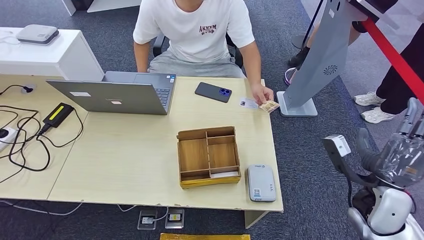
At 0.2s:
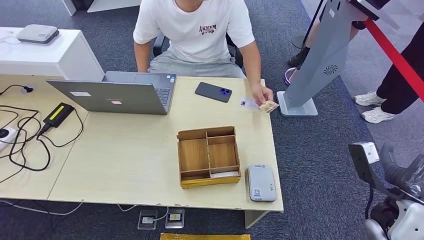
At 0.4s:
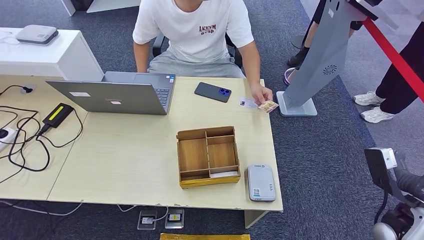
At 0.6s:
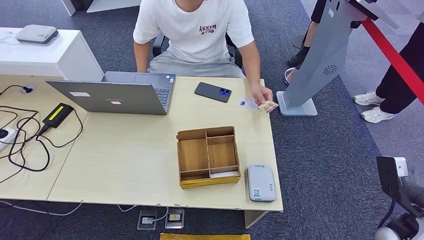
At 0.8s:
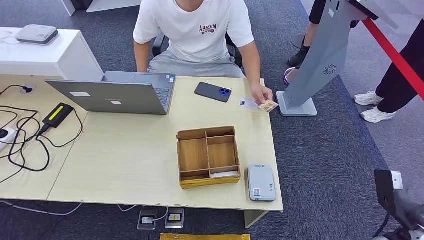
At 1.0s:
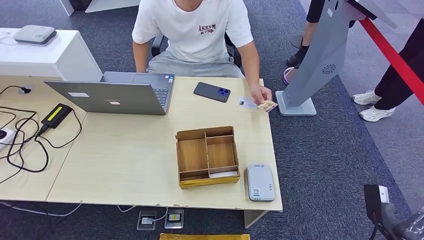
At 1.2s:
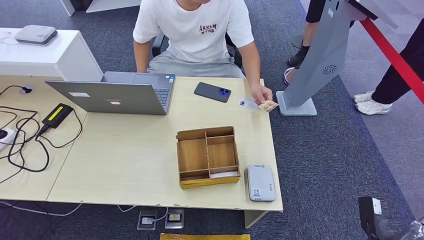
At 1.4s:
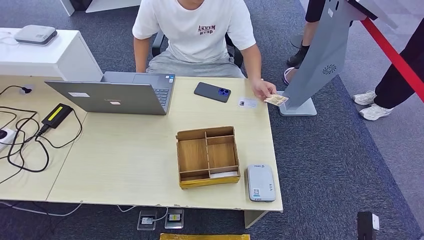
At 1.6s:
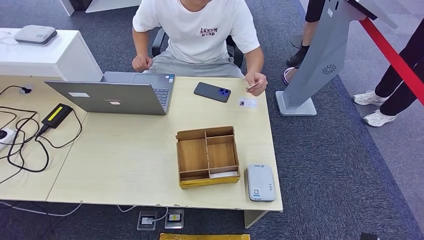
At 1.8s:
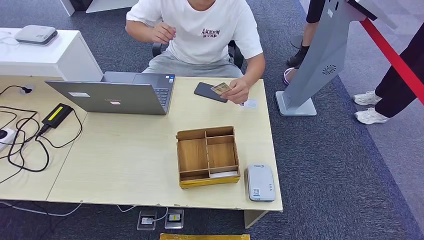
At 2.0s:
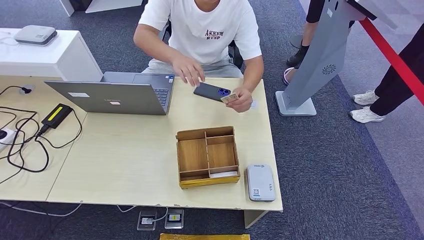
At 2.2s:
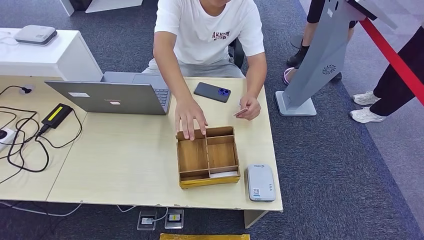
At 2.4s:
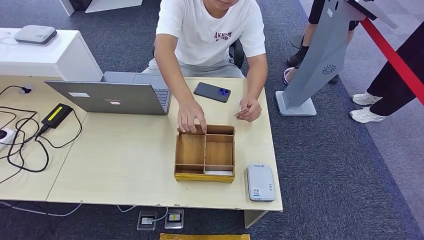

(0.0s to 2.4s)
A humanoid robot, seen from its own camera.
Step, 0.0s - 2.4s: Hand the room key to the person.
0.0s - 1.2s: The right hand shifts roughly 25 cm downward, backward and to the right.
1.2s - 2.4s: The right hand goes approximately 20 cm downward, to the left and backward.
